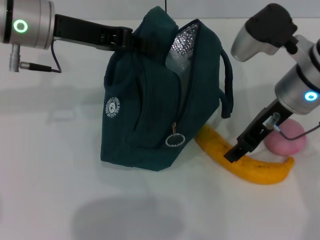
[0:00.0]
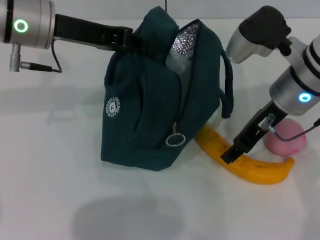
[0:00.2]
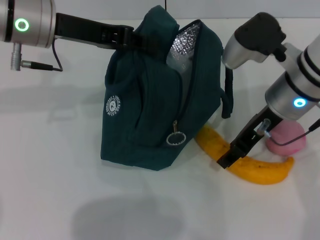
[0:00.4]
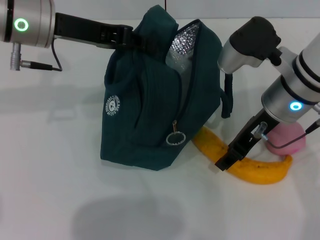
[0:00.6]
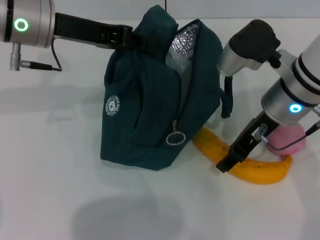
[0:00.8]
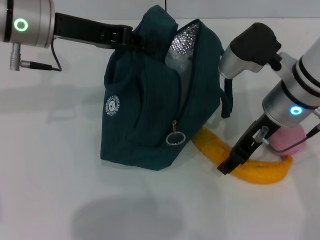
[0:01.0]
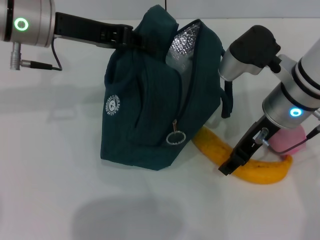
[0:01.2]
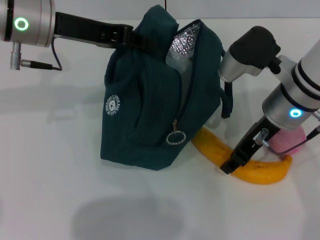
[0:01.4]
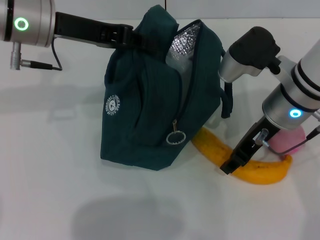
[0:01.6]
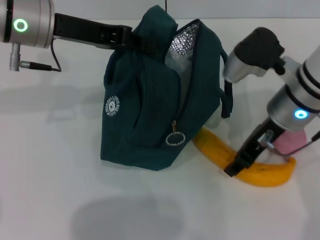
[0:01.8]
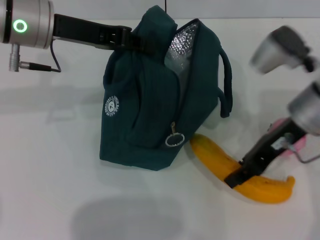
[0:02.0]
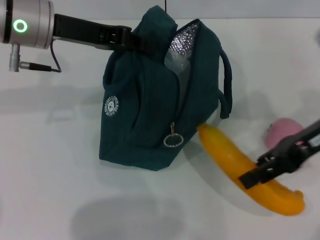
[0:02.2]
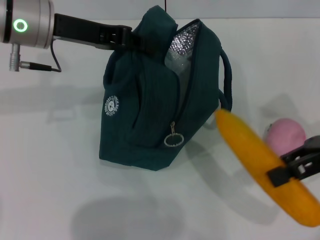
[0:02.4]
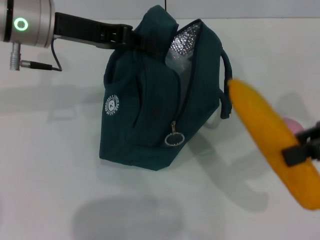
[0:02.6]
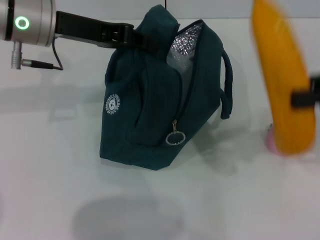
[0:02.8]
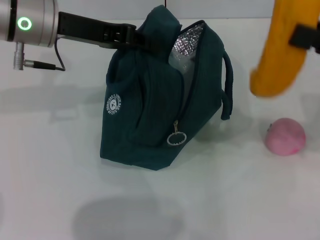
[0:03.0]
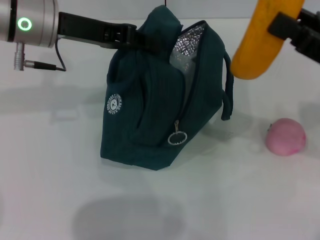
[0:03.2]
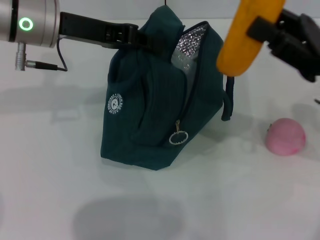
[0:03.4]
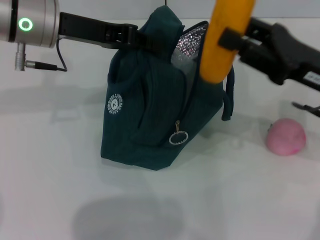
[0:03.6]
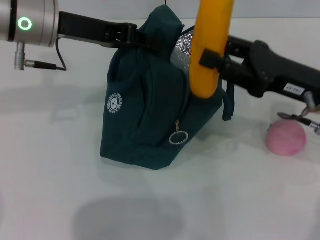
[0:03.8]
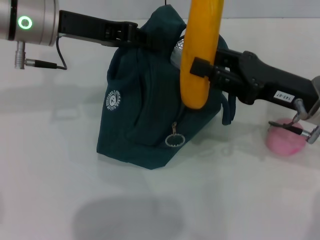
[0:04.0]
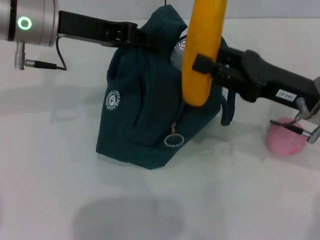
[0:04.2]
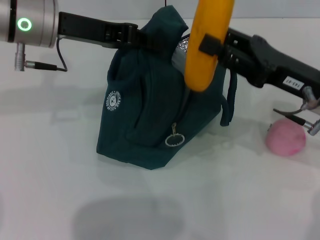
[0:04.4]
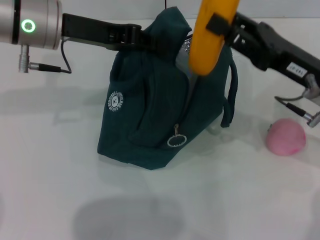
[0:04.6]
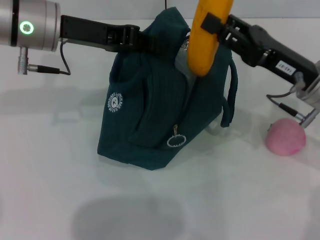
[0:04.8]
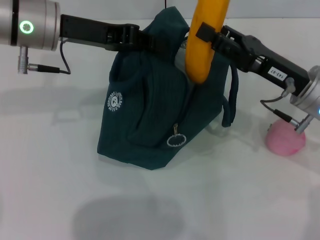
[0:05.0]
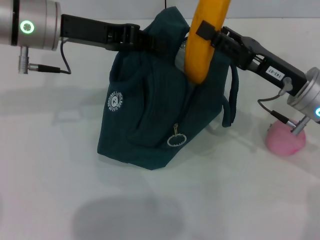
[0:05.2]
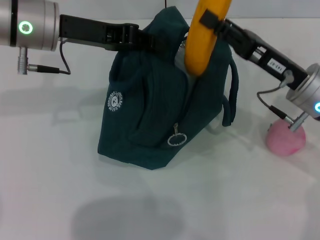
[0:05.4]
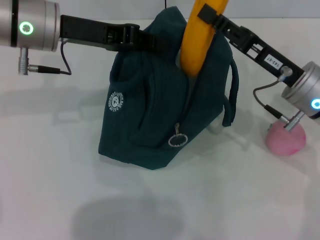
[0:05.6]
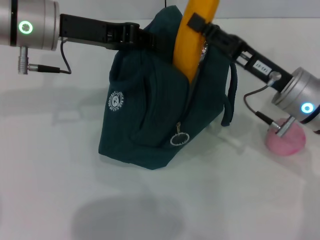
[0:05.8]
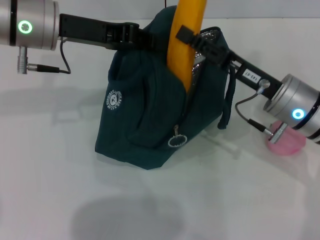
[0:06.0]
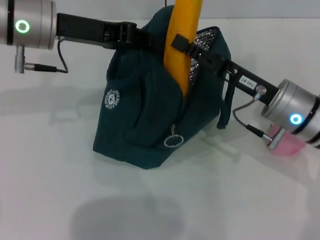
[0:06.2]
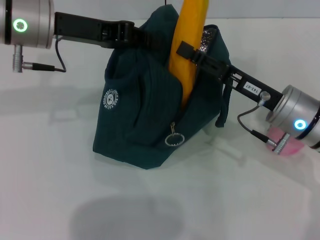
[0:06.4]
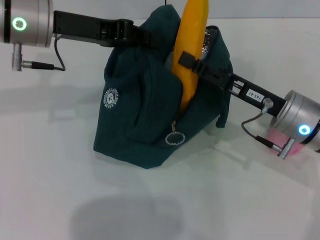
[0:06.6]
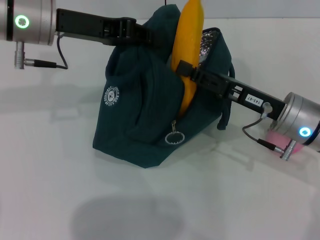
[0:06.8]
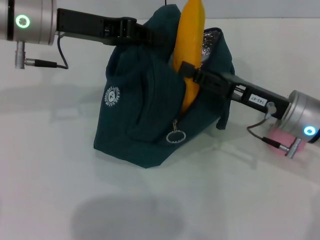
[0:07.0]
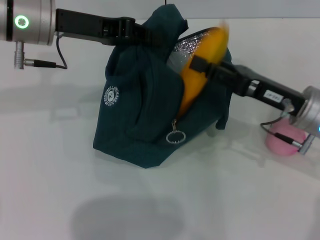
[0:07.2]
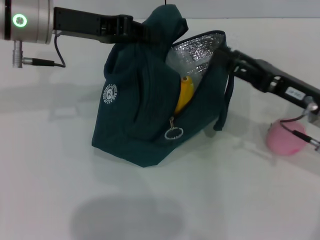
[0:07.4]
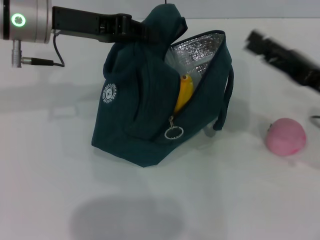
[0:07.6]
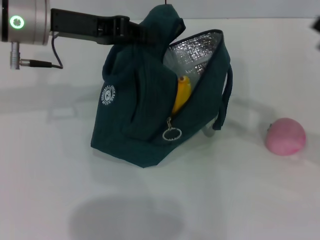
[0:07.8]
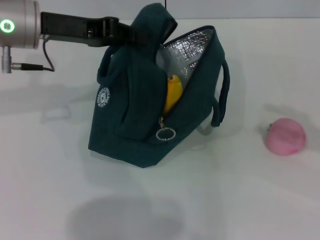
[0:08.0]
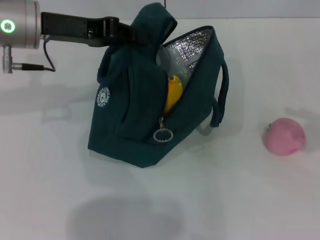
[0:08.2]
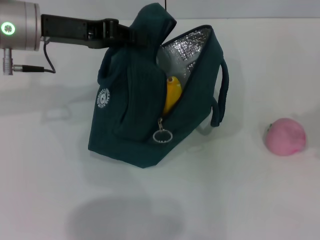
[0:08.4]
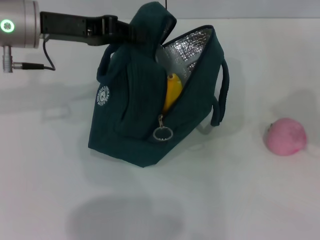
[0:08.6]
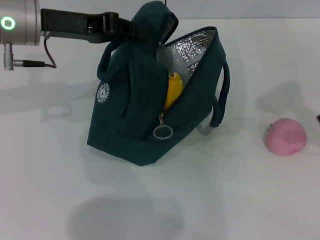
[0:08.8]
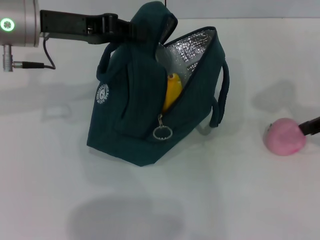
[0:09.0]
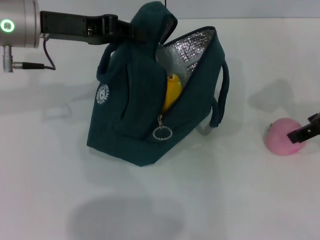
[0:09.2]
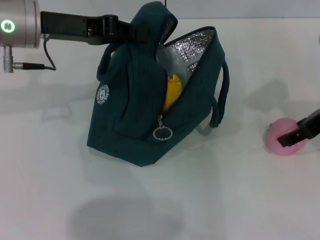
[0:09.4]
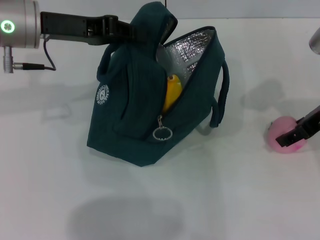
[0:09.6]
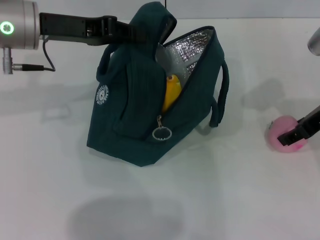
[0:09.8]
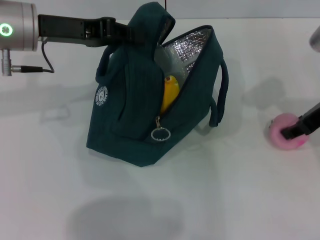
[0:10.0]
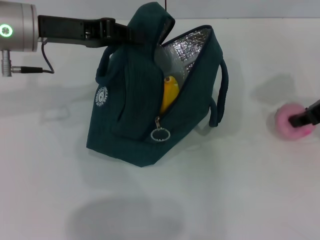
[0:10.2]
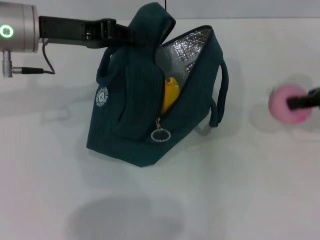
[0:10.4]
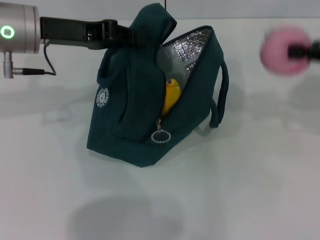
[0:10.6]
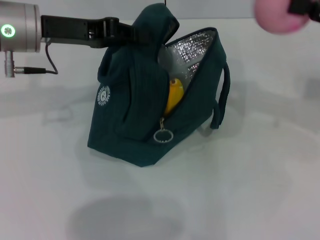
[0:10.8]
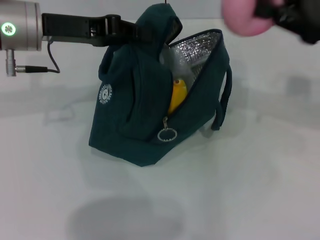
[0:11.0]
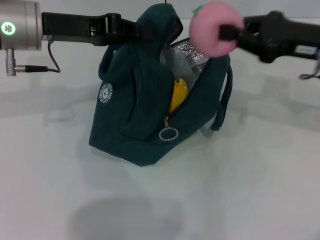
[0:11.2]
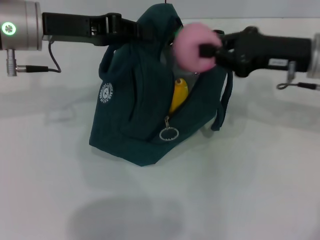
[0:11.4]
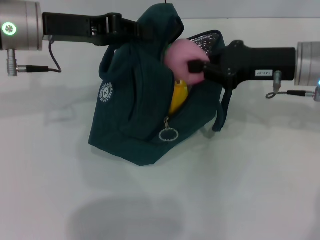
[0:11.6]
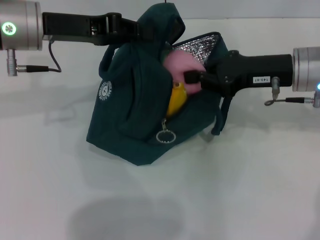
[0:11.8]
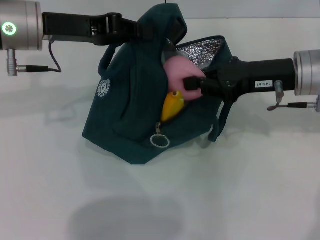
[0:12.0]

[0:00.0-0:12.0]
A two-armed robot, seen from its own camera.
Step, 0:01.6 to 0:07.6: Put the banana into the lunch bag with your right hand.
Step, 0:07.8 to 0:09.8: Grab the peach with your right hand.
0:00.0 to 0:01.6: The grippers move only a little.
0:01.6 to 0:03.0: The right gripper is displaced to the right by some 15 cm.
0:03.0 to 0:04.4: The right gripper heads to the left and downward, covering some 10 cm.
0:04.4 to 0:06.0: The right gripper changes place by approximately 5 cm.
0:06.0 to 0:07.6: The right gripper shifts some 10 cm to the right.
0:07.6 to 0:09.0: The right gripper shifts approximately 10 cm upward.
0:09.0 to 0:10.4: The right gripper closes up.
0:10.4 to 0:12.0: The right gripper shifts roughly 10 cm to the left, and closes its fingers.

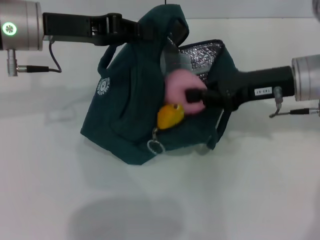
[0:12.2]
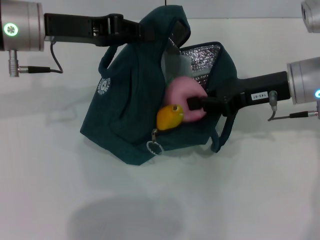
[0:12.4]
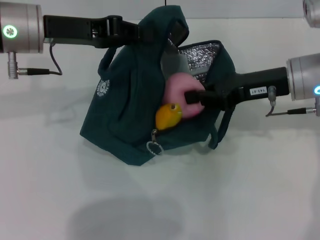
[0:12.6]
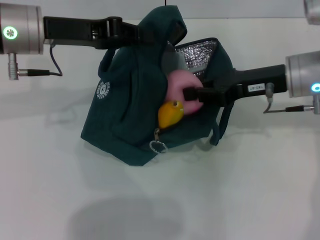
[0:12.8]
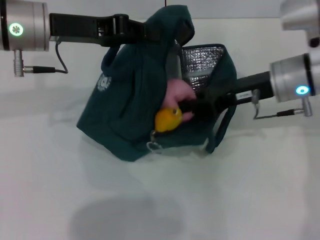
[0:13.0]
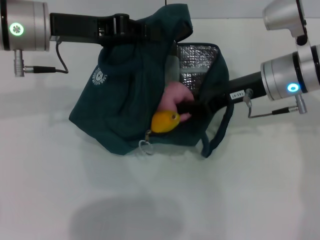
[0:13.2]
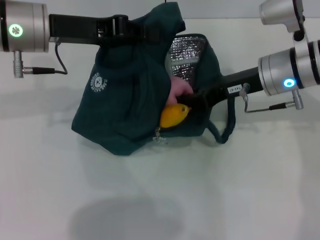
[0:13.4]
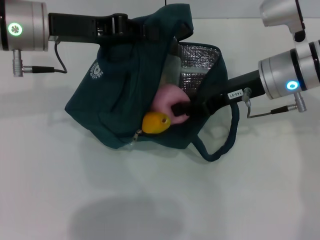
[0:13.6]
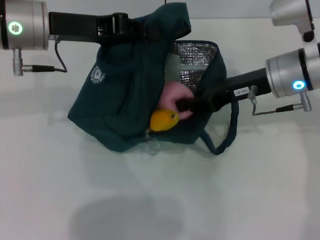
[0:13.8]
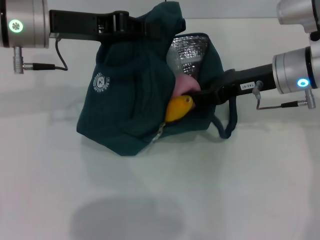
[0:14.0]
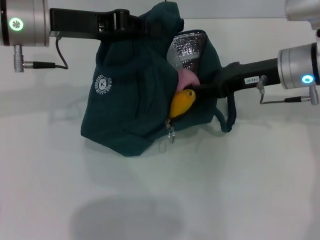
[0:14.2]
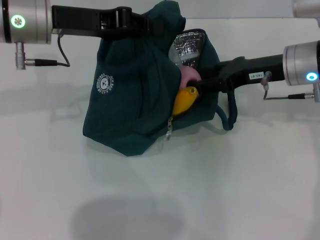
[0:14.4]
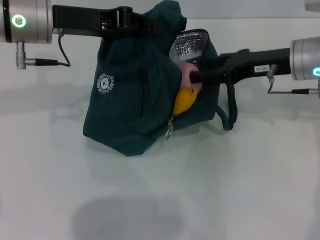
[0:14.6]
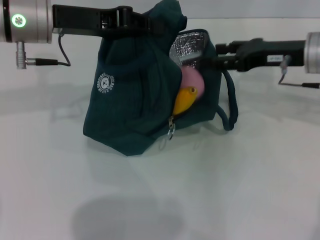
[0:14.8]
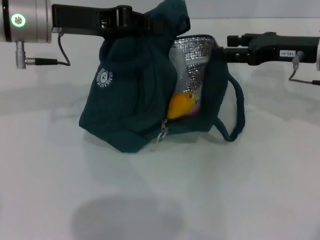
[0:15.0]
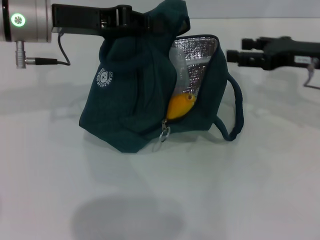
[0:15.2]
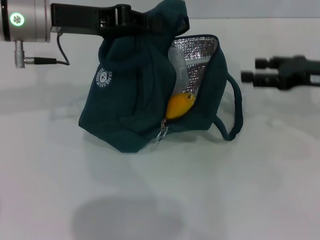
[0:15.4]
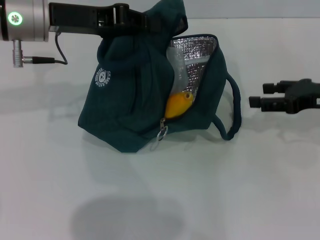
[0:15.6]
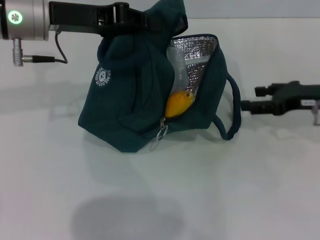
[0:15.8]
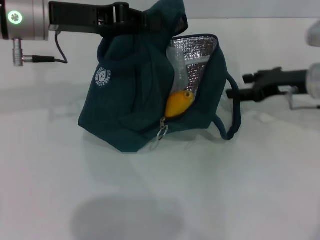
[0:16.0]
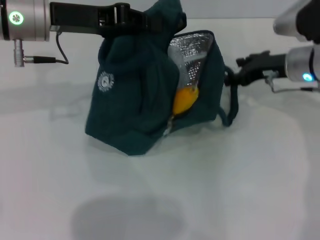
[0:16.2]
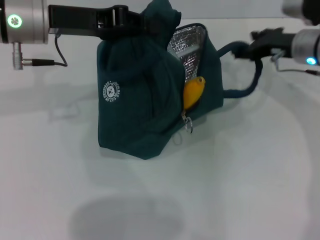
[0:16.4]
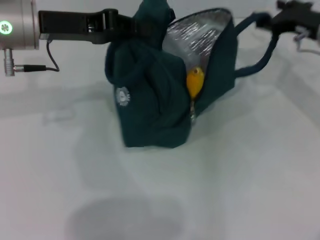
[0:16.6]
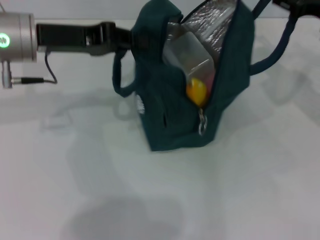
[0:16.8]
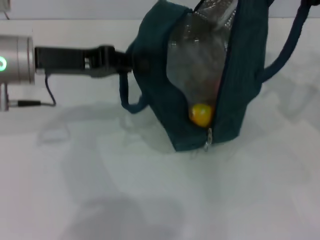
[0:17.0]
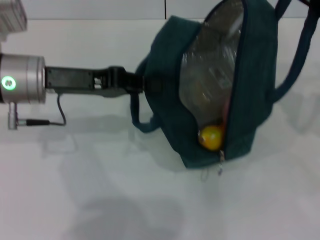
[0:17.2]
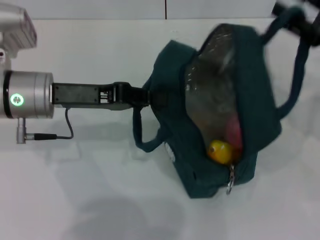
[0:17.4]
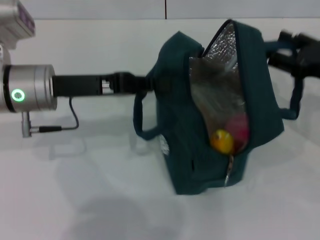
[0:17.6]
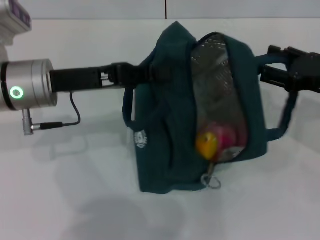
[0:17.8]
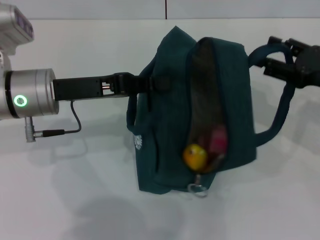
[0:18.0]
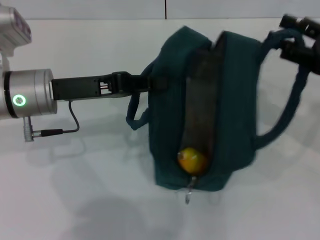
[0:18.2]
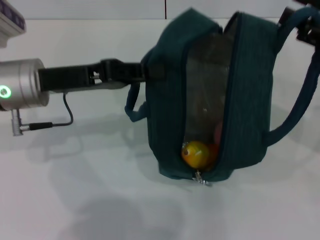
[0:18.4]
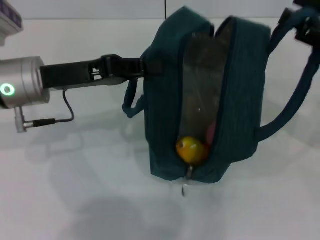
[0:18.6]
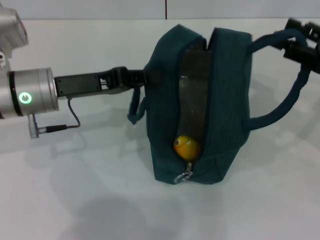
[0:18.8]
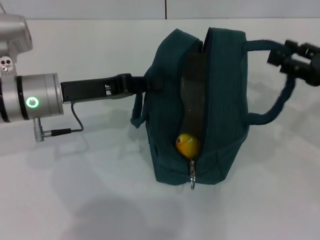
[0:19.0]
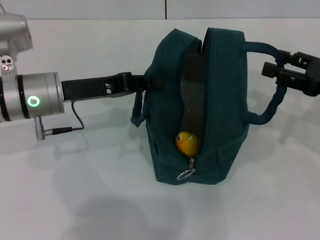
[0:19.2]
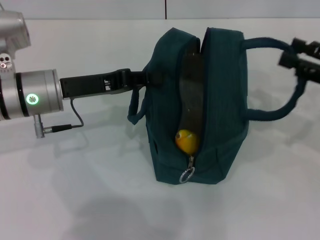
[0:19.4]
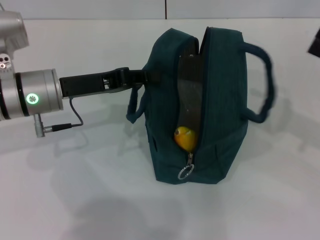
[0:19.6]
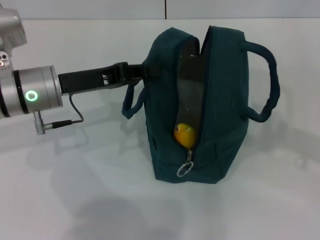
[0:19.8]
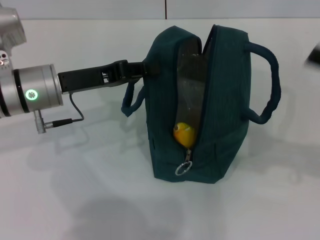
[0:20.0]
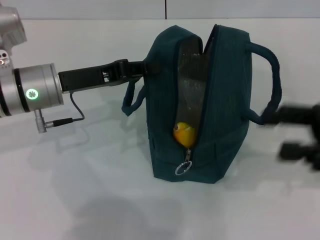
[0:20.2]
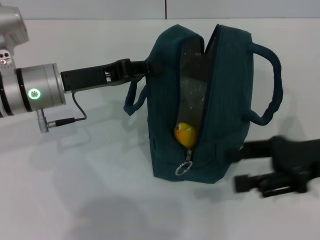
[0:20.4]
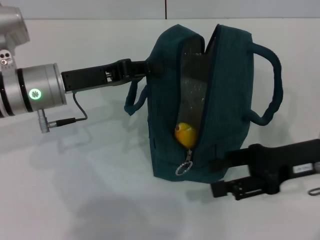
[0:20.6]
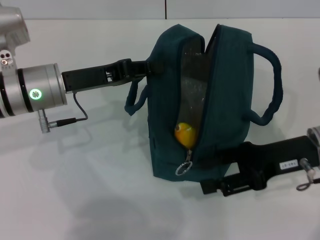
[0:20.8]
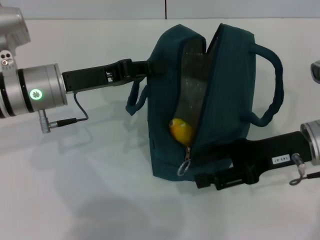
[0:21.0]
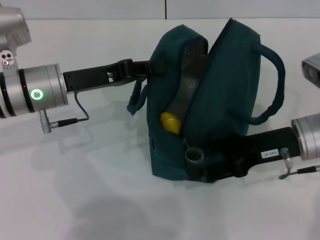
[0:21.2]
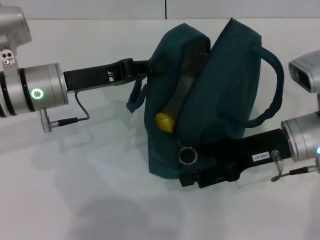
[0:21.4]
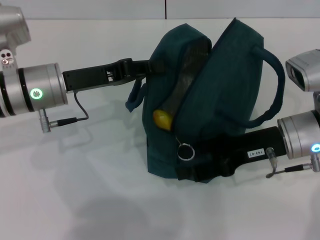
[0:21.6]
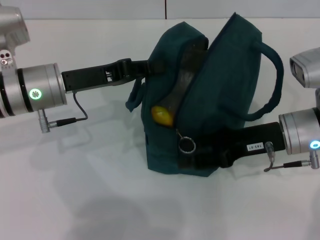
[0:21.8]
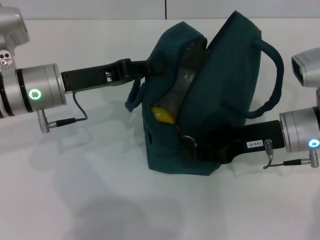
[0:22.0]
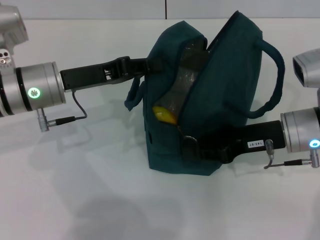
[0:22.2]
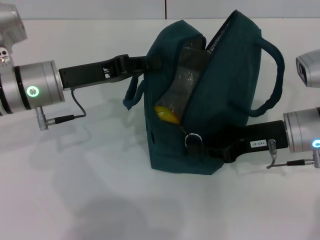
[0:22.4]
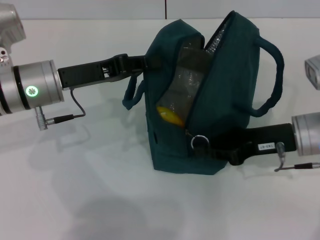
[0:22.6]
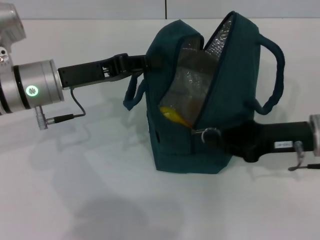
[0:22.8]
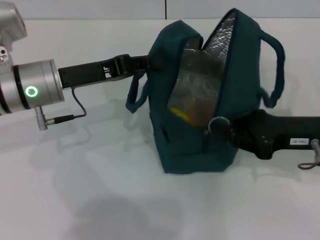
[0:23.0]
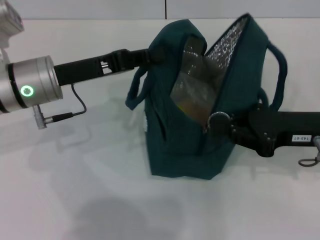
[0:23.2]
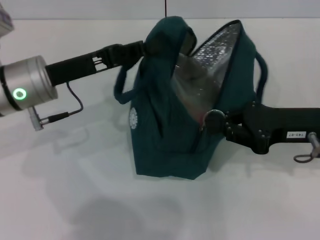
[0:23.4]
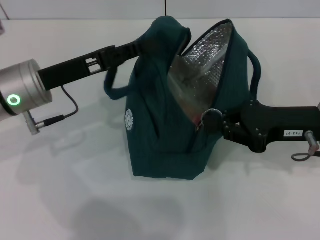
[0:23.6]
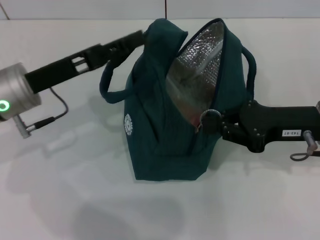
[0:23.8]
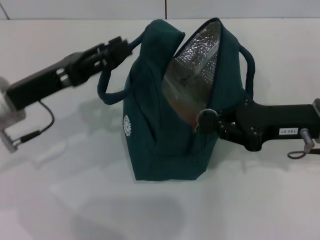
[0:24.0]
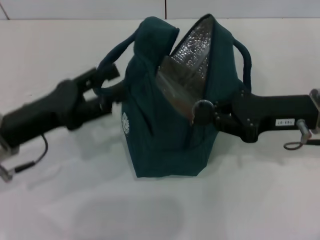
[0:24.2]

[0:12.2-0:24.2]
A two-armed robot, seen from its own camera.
Step, 0:15.6 to 0:19.8: Hold the lunch bag with your right hand.
0:12.2 to 0:13.8: The grippers make only small movements.
0:13.8 to 0:15.2: The right gripper travels to the right by approximately 10 cm, and opens.
0:15.2 to 0:16.6: The right gripper heads forward, covering roughly 5 cm.
0:16.6 to 0:18.2: The right gripper is displaced backward by about 15 cm. The left gripper heads downward and backward, covering about 10 cm.
0:18.2 to 0:19.8: The right gripper shifts by about 5 cm.
0:19.8 to 0:21.2: The right gripper goes roughly 15 cm to the left and downward.
0:21.2 to 0:22.6: The right gripper closes.
0:22.6 to 0:24.2: The left gripper shifts roughly 10 cm backward, and opens its fingers.
